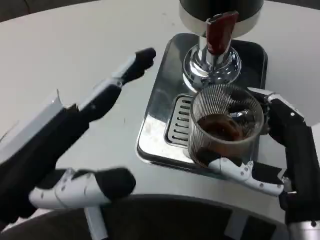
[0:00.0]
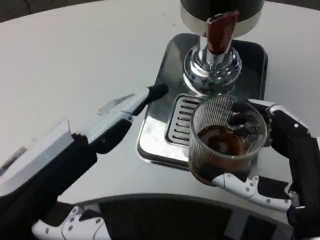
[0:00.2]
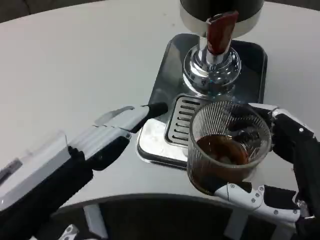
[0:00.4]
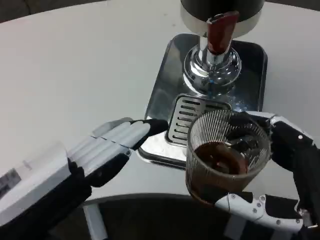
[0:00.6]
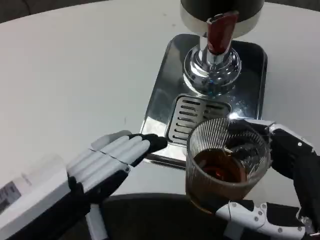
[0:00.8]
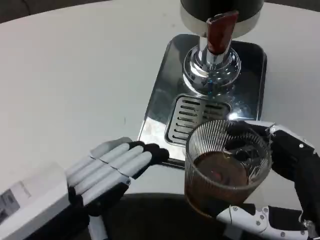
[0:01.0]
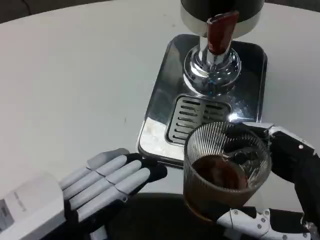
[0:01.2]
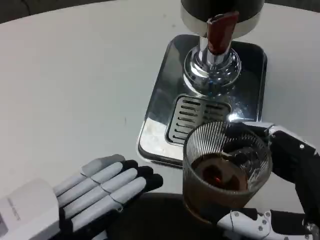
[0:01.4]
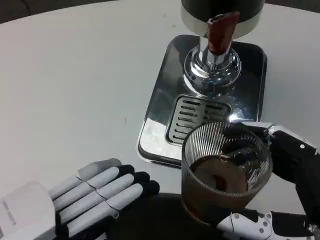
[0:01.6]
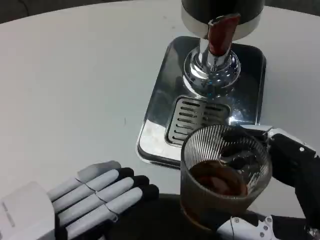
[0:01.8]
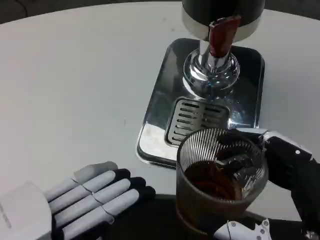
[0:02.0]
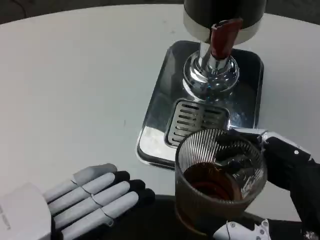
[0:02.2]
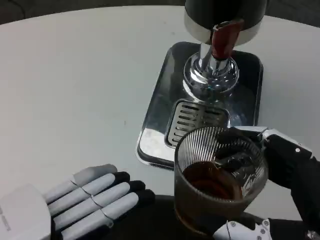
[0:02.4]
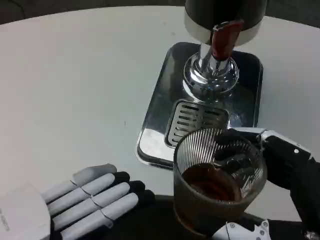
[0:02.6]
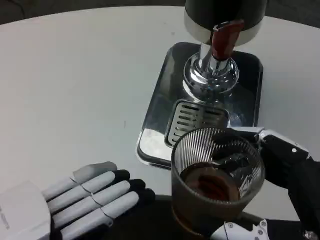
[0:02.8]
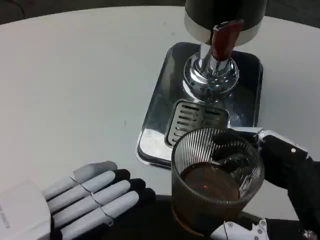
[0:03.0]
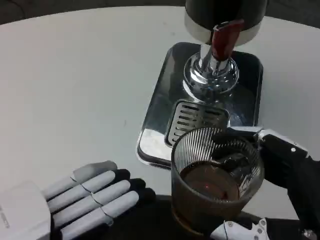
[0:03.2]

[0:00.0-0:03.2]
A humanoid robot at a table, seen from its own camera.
Task of the whole recording: Grasp the cup under the faucet to collect the drink, then remove the cup.
0:00.0 to 0:01.6: The hands both shift backward by approximately 5 cm.

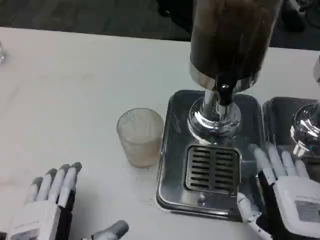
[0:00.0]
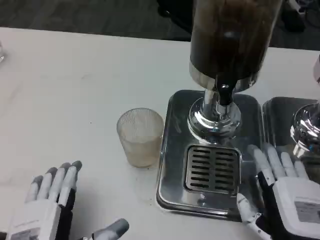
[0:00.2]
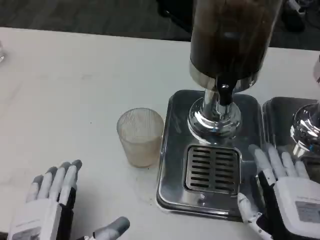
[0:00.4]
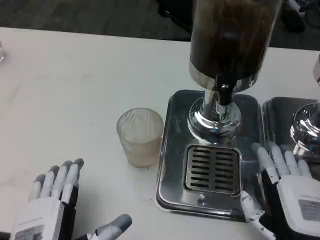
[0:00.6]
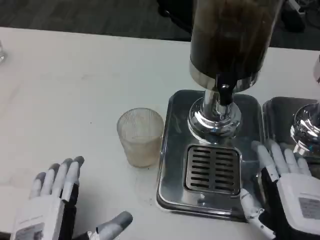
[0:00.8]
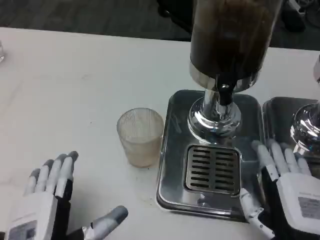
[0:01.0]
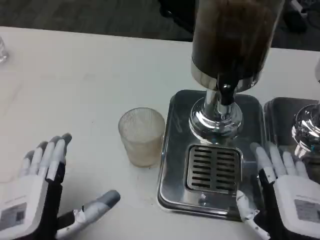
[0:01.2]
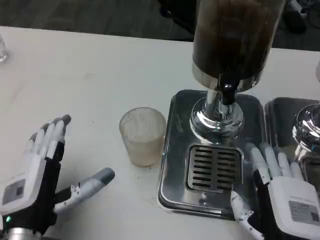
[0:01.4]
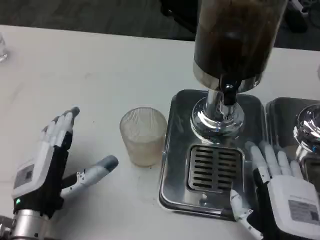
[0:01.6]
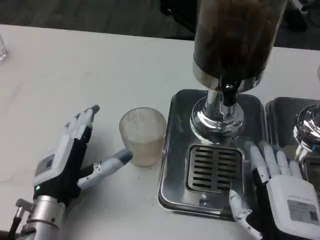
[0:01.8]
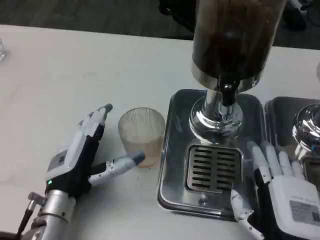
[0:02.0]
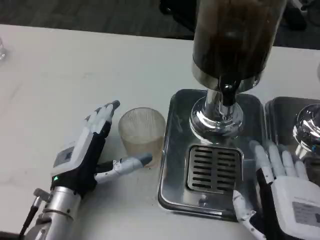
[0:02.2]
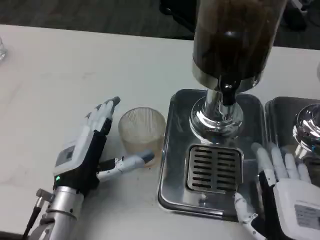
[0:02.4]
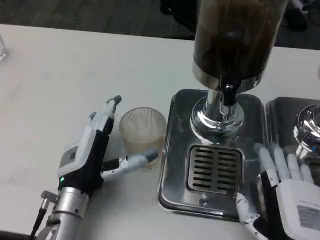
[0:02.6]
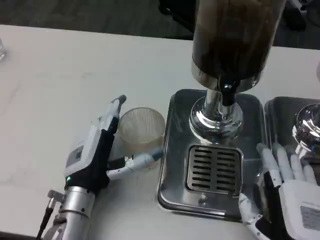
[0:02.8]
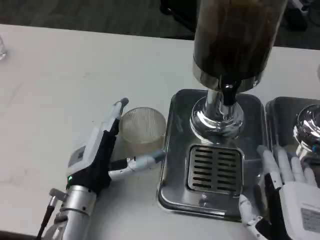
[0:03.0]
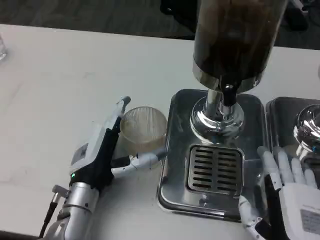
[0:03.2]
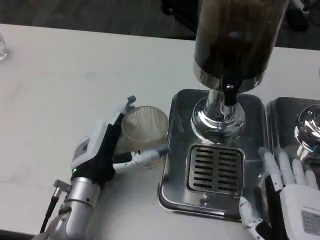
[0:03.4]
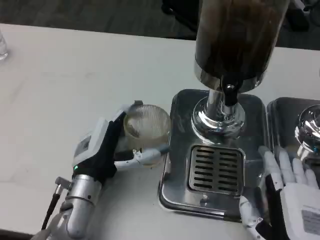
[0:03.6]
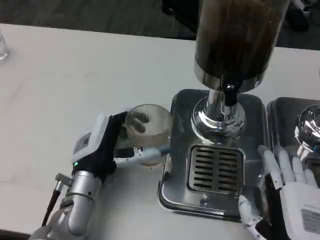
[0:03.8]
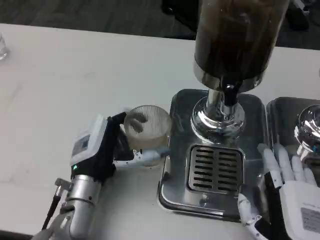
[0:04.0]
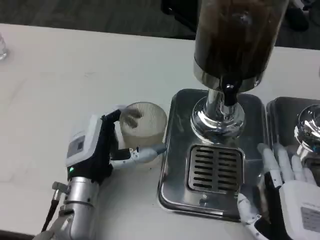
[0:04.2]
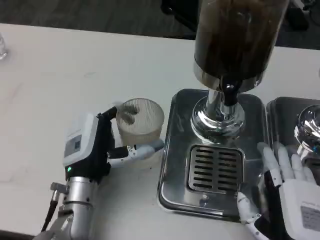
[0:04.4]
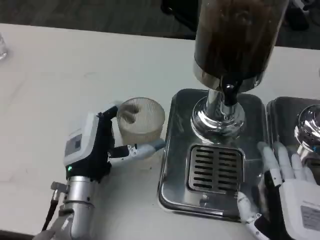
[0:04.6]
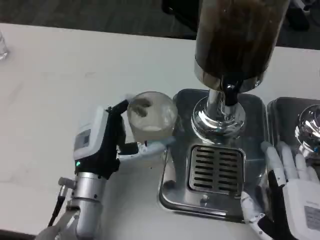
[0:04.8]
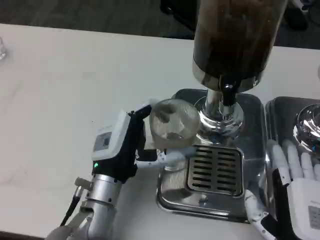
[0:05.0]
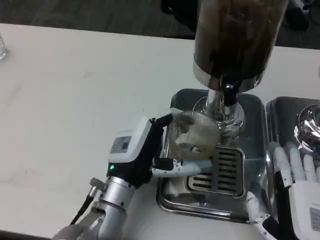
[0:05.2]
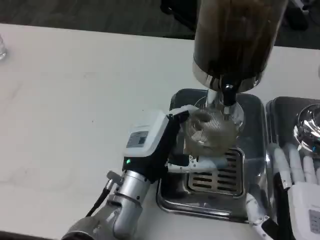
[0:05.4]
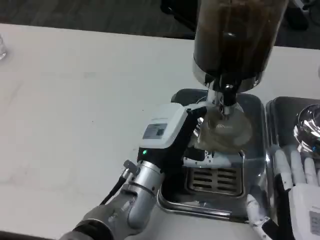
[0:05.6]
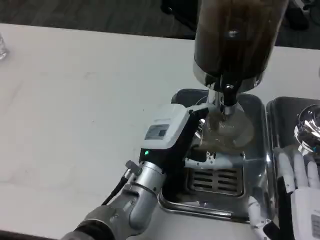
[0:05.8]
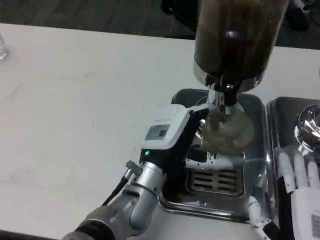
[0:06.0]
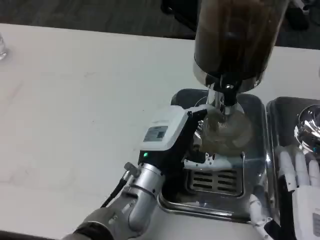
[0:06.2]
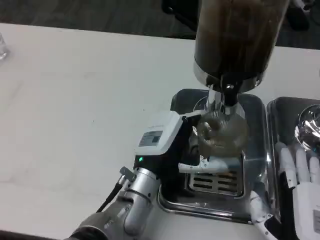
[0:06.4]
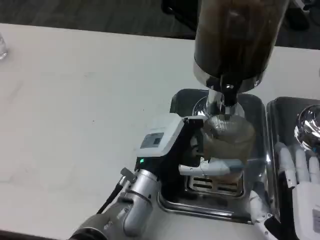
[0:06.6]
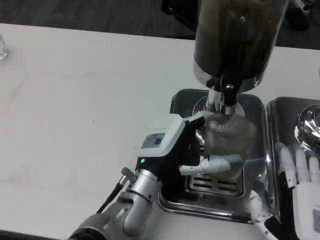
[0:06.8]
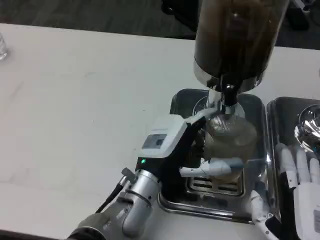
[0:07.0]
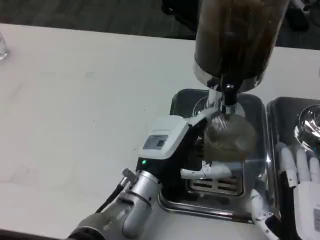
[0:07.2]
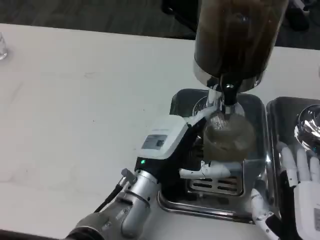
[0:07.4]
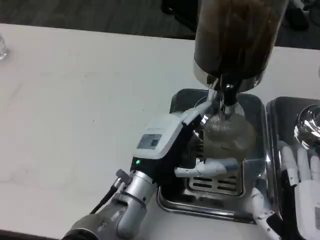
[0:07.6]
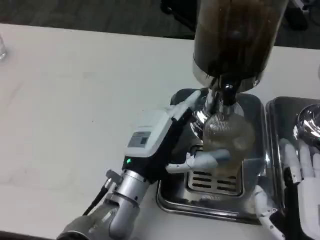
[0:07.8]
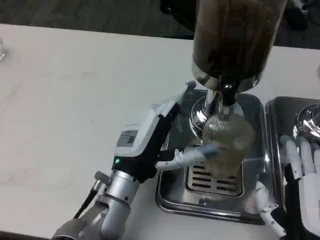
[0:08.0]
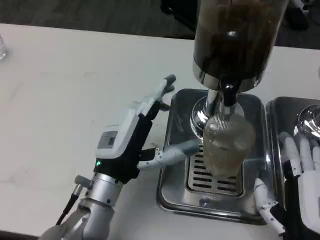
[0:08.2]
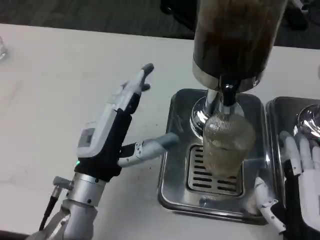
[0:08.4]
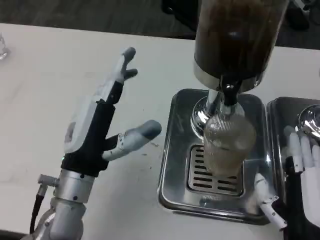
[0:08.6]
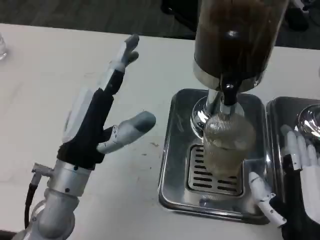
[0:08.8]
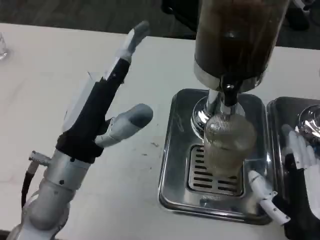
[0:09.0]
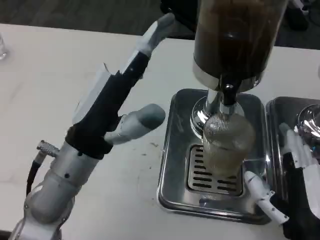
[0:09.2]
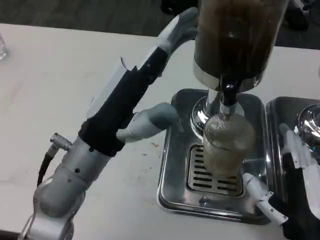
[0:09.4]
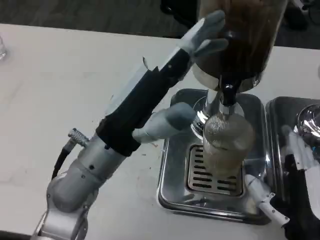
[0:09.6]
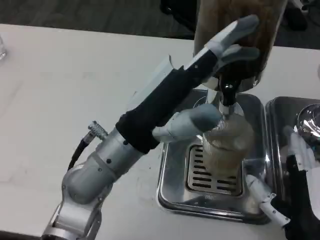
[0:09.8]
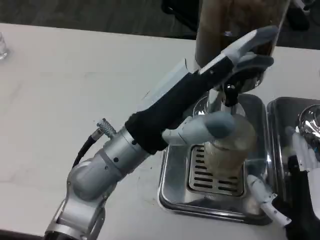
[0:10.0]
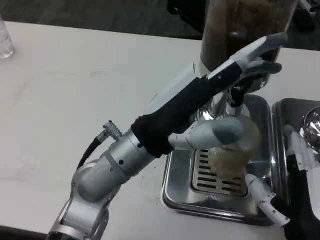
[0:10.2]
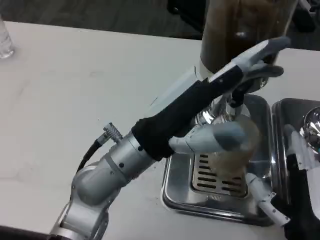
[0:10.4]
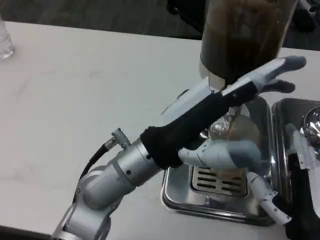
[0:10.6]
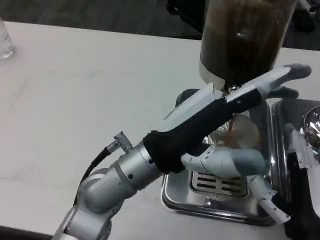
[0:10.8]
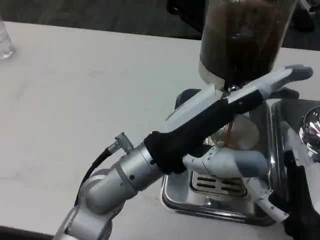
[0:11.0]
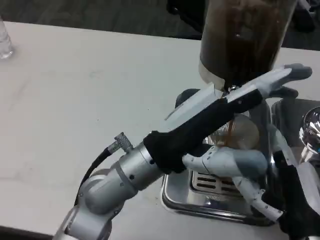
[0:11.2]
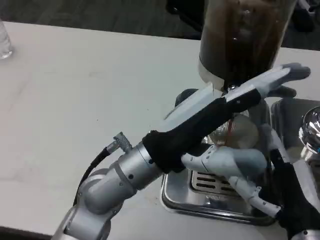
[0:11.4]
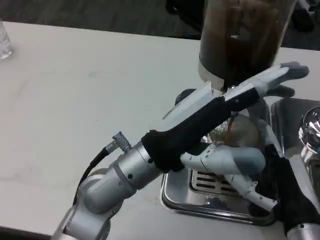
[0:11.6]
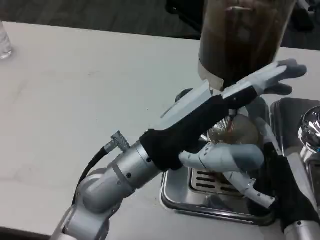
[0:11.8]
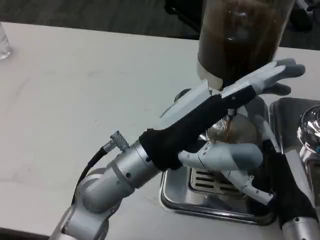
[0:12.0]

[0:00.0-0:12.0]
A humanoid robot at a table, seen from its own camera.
Task of the whole recording: Grasp the cup under the faucet to collect the drink, then remove the cup.
0:00.0 to 0:01.6: The left hand is displaced forward by about 10 cm.
0:01.6 to 0:03.0: The left hand travels to the right by about 5 cm.
0:03.0 to 0:04.4: There are only small adjustments of the hands.
0:04.4 to 0:06.0: The left hand is displaced to the right by approximately 10 cm.
0:06.0 to 0:07.6: The hands stay close to where they were, moving slightly.
0:07.6 to 0:09.0: The left hand goes about 10 cm to the left and upward.
0:09.0 to 0:10.4: The left hand shifts some 5 cm to the right.

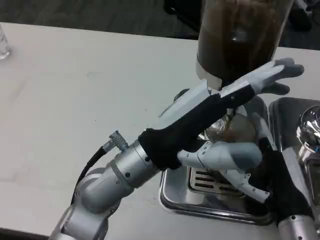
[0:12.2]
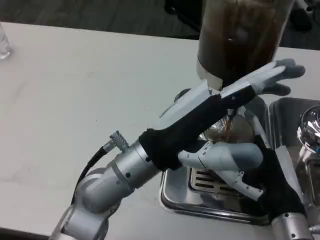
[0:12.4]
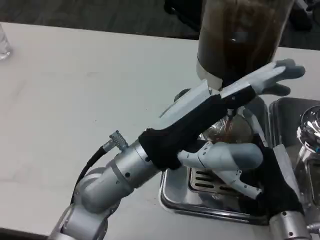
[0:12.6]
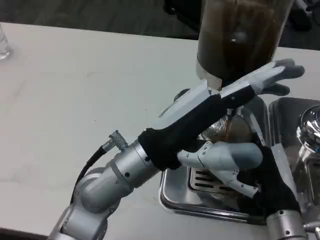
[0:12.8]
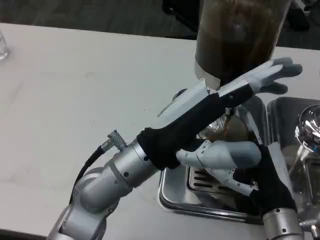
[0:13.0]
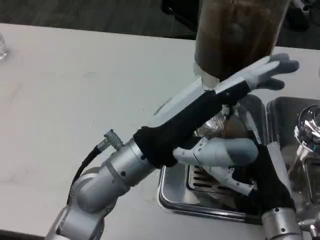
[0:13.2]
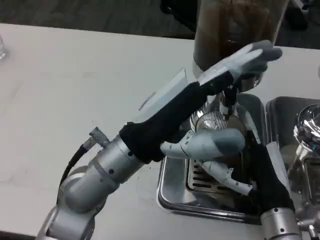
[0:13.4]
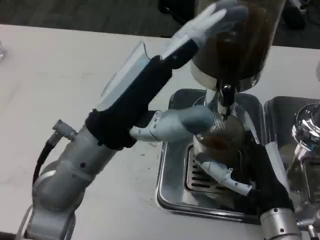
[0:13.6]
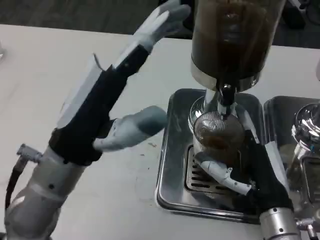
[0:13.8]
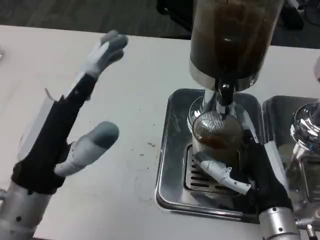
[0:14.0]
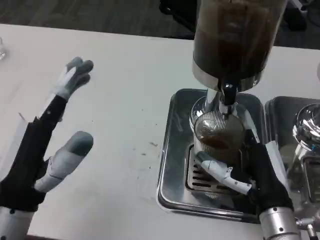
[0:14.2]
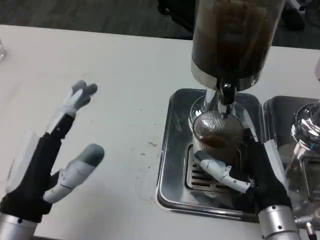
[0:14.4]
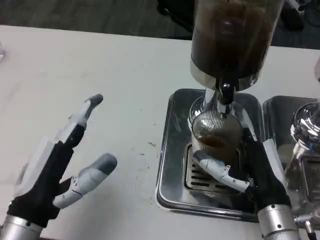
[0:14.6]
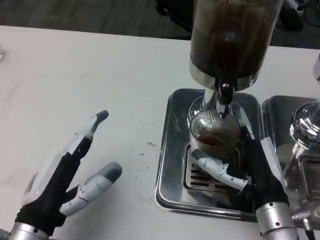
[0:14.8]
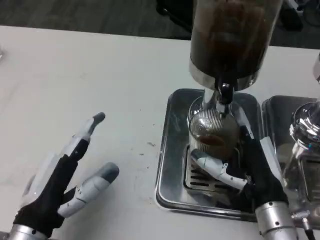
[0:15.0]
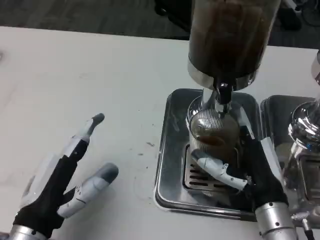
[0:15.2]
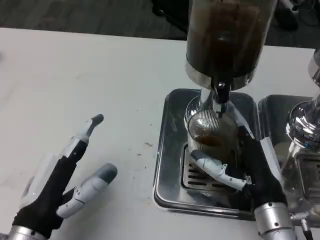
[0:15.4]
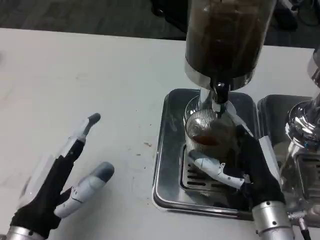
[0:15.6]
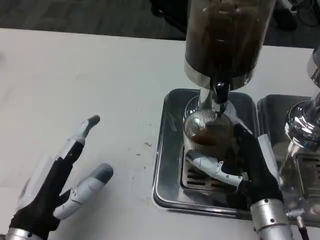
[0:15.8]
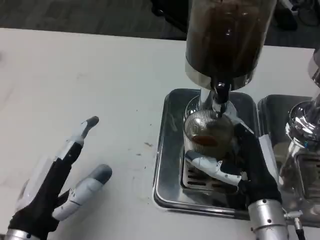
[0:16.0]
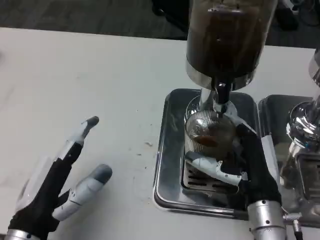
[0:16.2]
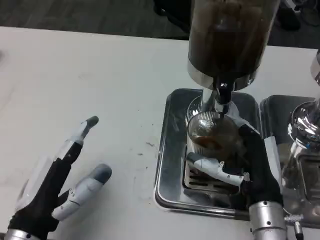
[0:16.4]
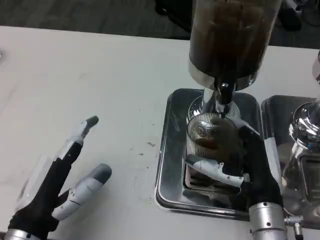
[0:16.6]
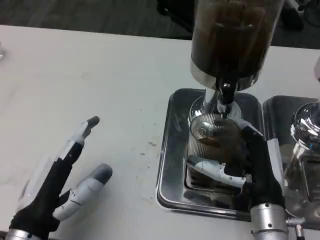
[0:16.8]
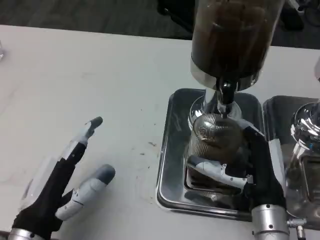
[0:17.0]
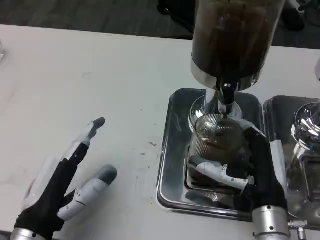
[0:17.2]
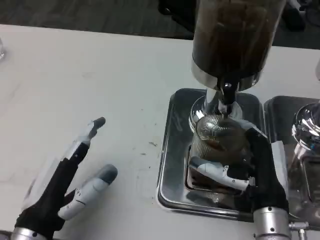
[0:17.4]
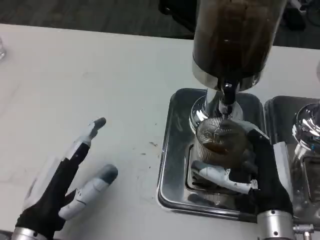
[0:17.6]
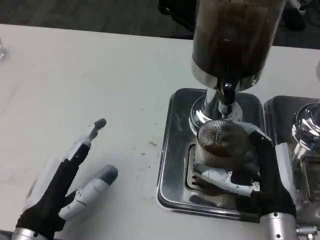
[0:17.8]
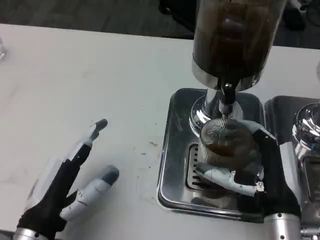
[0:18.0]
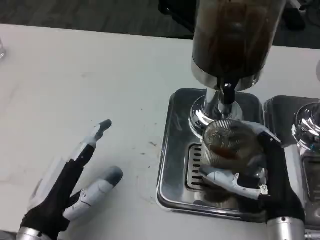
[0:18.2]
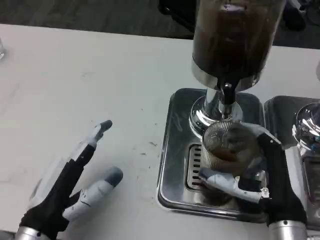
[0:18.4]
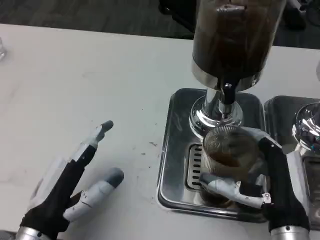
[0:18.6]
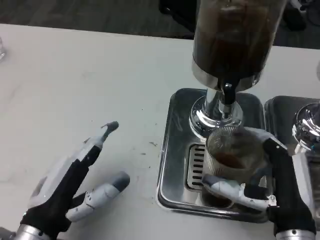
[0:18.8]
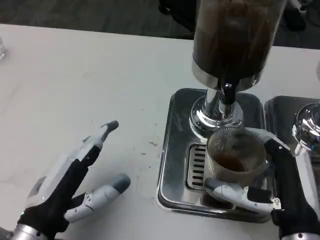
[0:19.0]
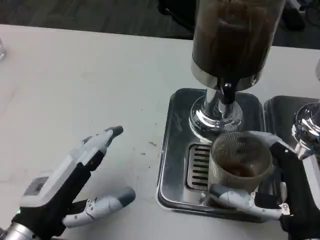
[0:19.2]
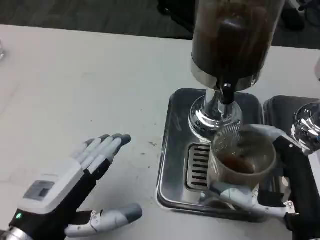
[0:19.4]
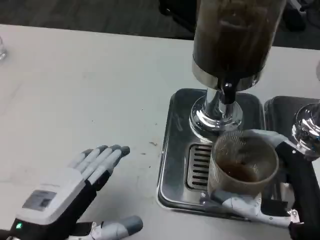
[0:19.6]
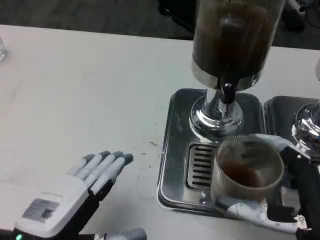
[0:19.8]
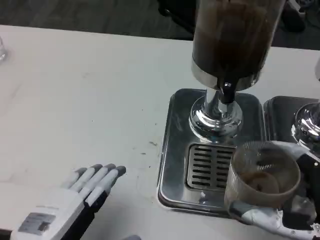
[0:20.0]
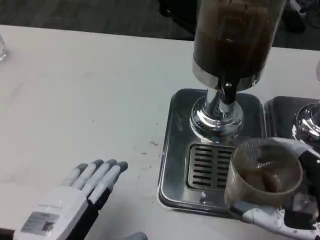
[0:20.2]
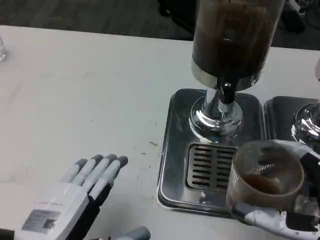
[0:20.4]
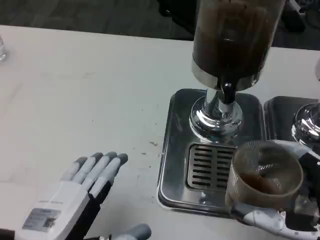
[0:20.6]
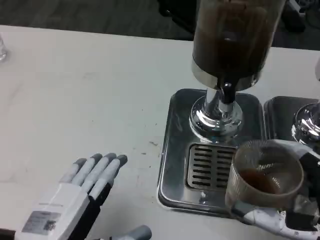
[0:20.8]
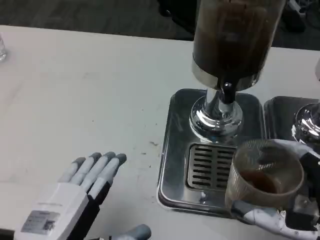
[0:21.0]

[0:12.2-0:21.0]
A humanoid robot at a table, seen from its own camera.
Task of the whole recording: Grasp the cup under the faucet to collect the drink, then remove the cup.
0:12.2 to 0:13.6: The left hand ends up approximately 5 cm from where it was.
0:13.6 to 0:15.2: The left hand moves downward, backward and to the left, roughly 15 cm.
0:15.2 to 0:16.6: The hands move only a little.
0:18.0 to 0:19.6: The left hand changes place by roughly 5 cm; the right hand goes about 5 cm backward.
0:19.6 to 0:21.0: The hands move only a little.
